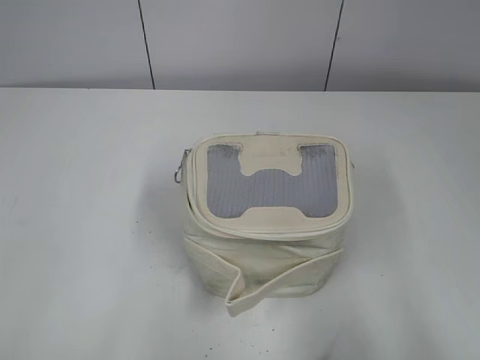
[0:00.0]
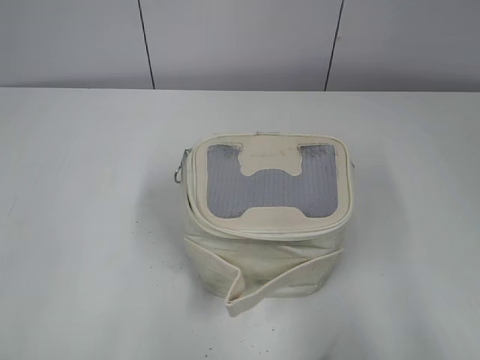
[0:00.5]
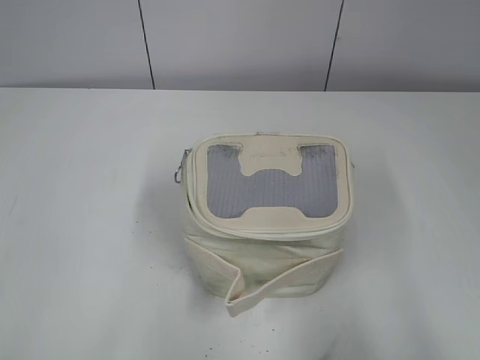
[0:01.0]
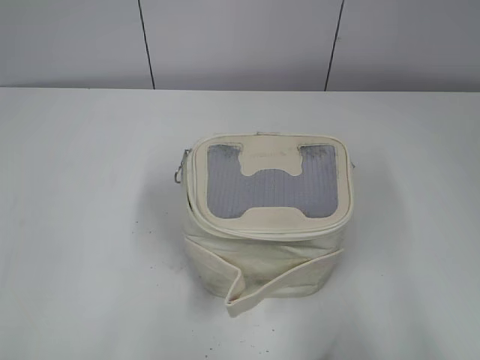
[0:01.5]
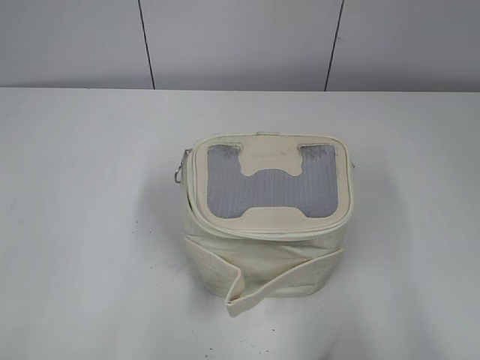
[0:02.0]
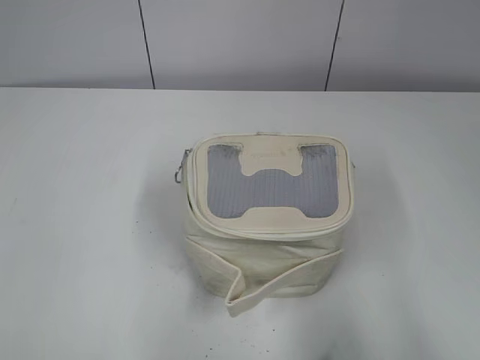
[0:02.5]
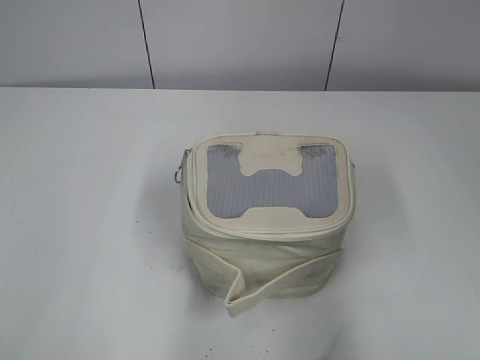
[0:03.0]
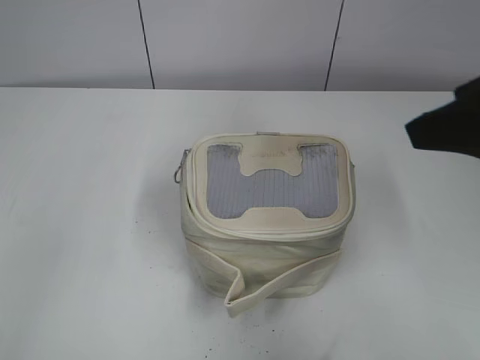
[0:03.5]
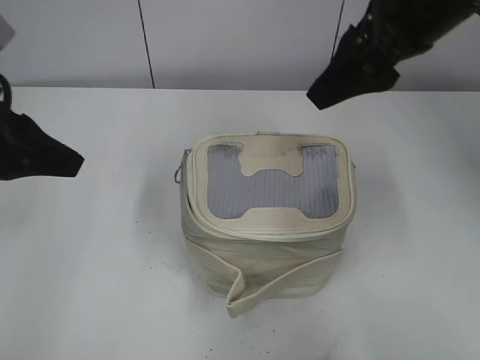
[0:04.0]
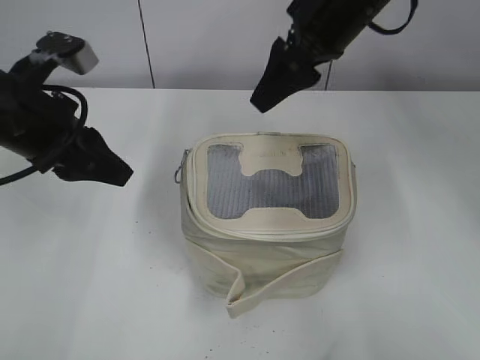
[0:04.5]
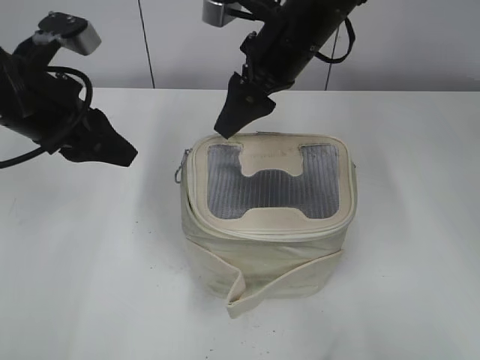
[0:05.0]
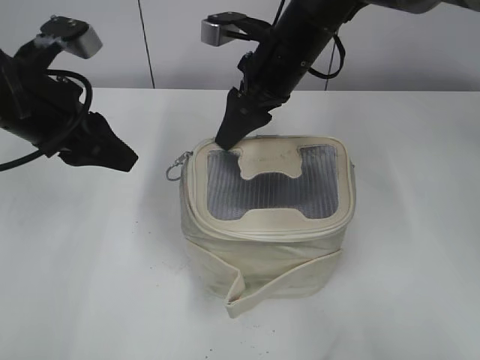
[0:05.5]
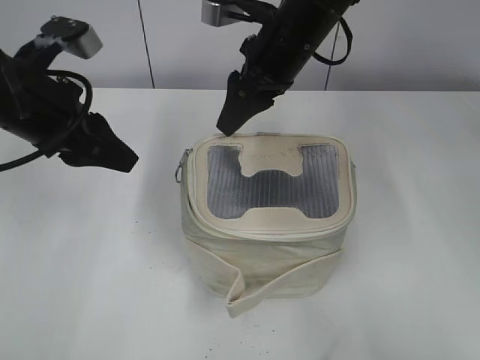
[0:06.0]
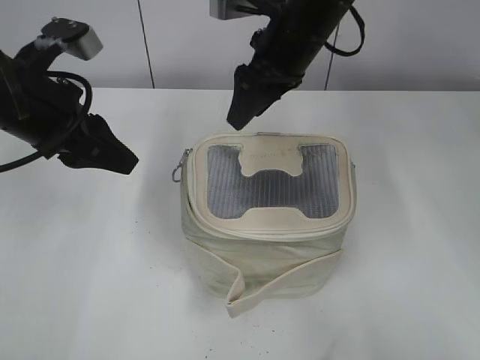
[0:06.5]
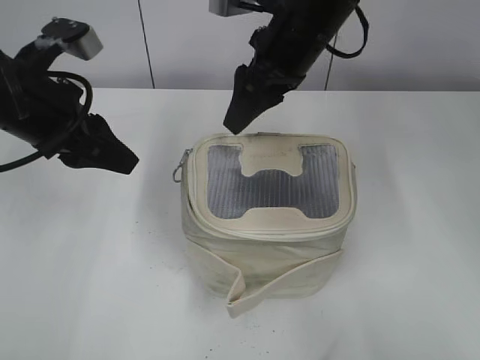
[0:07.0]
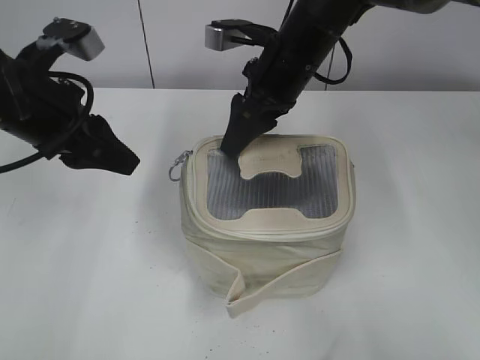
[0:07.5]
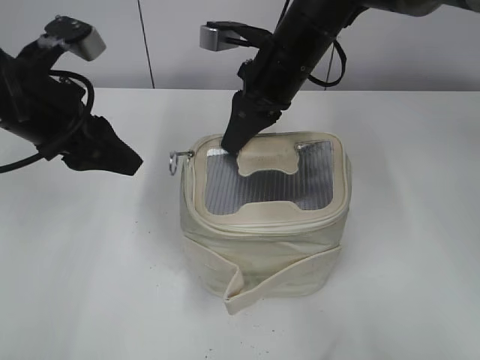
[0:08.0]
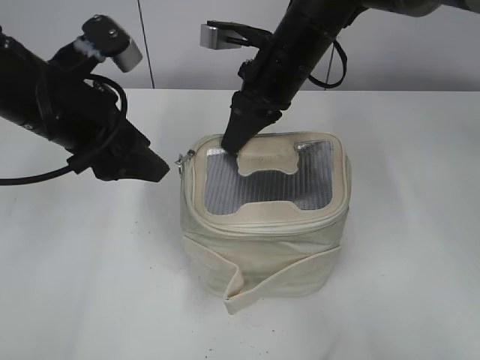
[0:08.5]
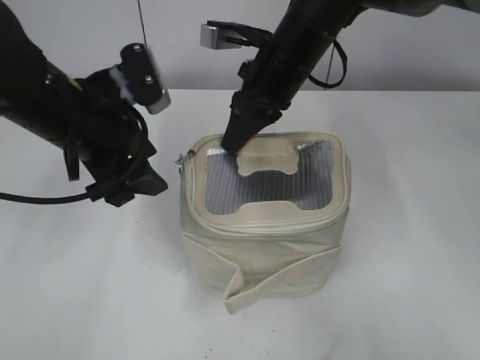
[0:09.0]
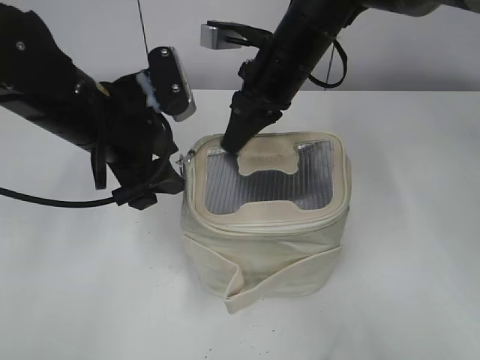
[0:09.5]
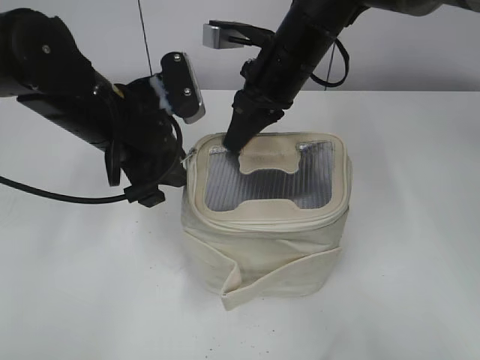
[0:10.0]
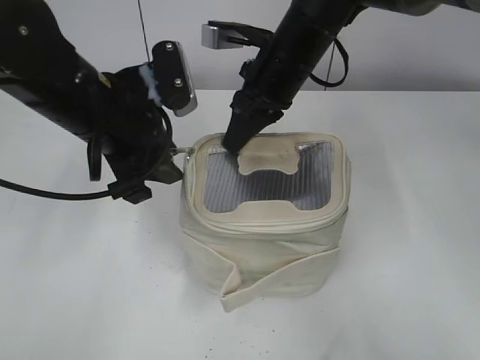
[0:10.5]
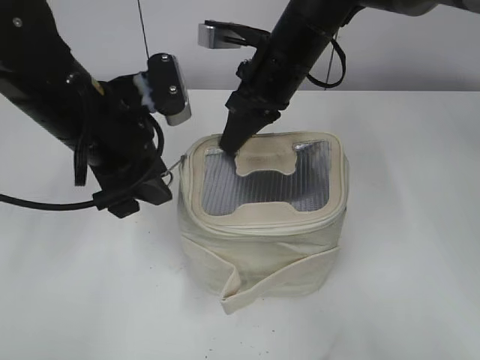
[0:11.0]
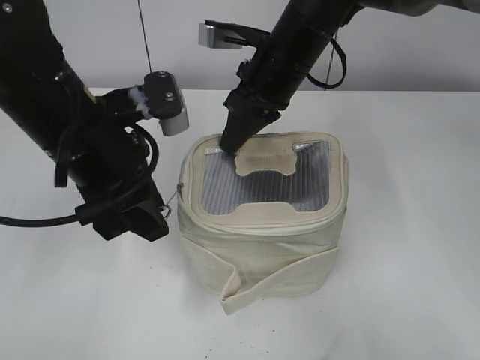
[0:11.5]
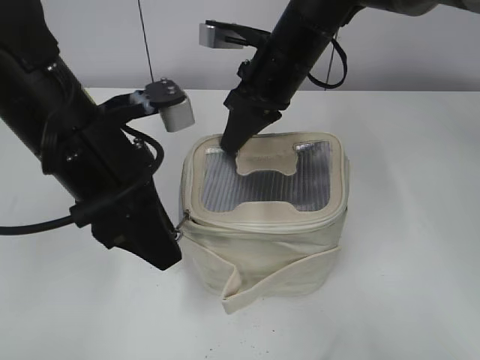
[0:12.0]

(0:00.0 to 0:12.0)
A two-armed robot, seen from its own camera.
0:02.0 - 0:04.0: The left gripper travels forward by some 25 cm. Meanwhile the right gripper goes approximately 35 cm forward and to the left.
0:04.0 - 0:06.0: The left gripper shifts some 5 cm forward. The right gripper goes about 15 cm forward, to the left and downward.
0:06.0 - 0:08.0: The right gripper closes up.
0:08.0 - 0:10.0: The left gripper is displaced to the right by roughly 10 cm.
0:10.0 - 0:12.0: The left gripper goes about 5 cm backward.

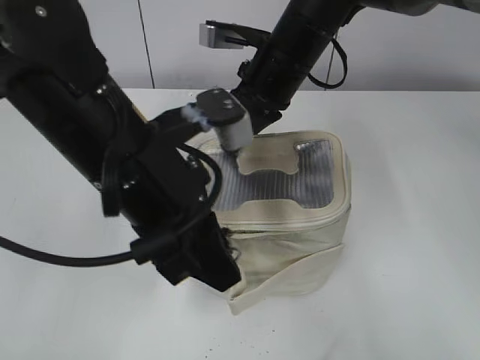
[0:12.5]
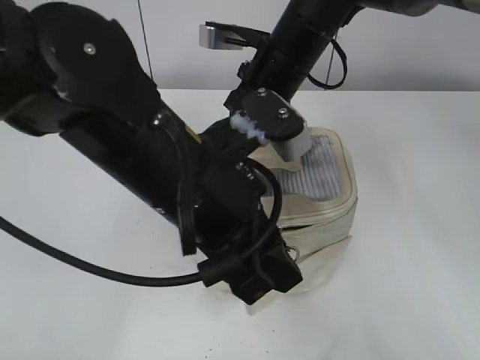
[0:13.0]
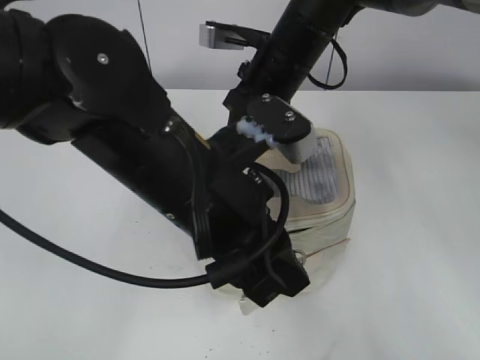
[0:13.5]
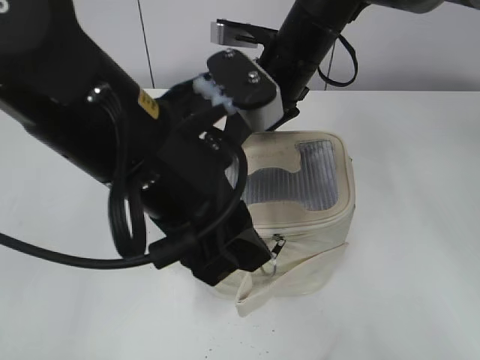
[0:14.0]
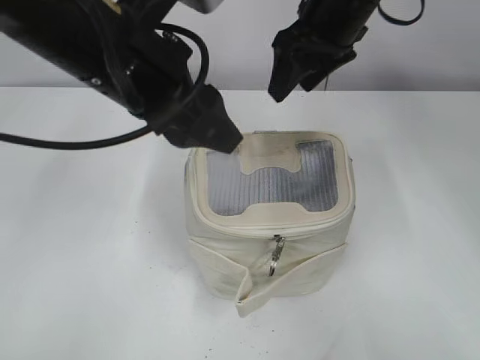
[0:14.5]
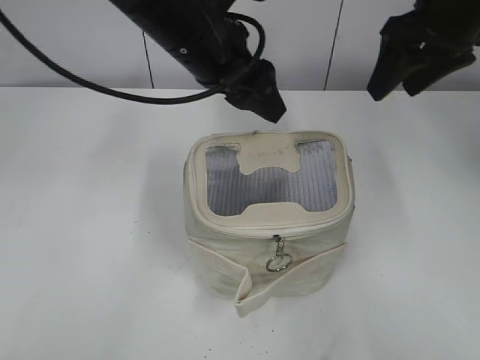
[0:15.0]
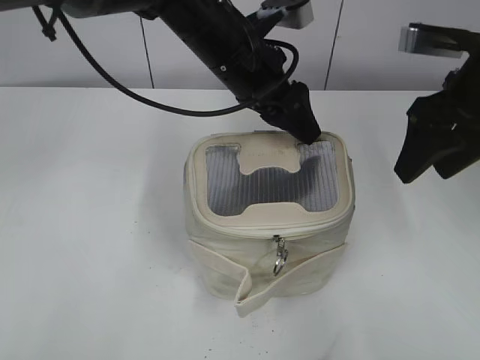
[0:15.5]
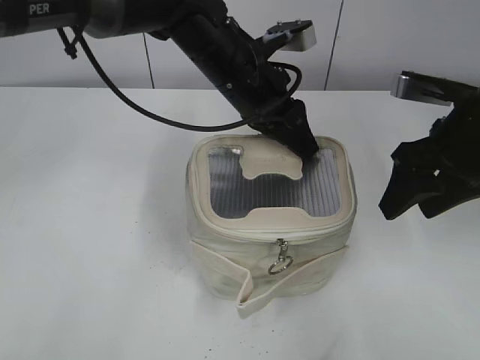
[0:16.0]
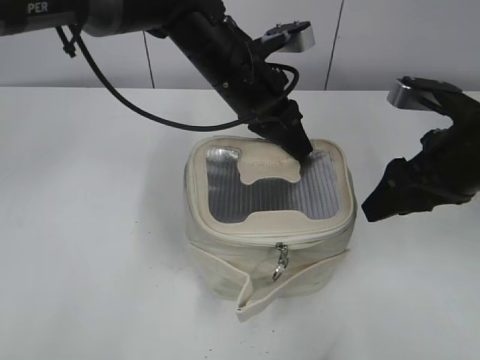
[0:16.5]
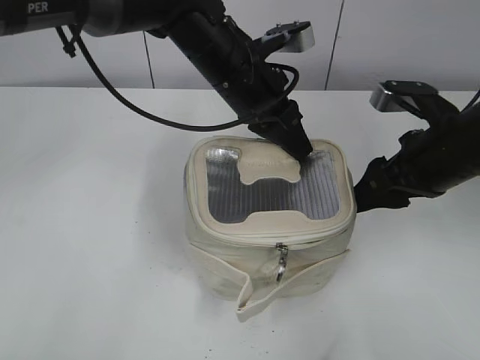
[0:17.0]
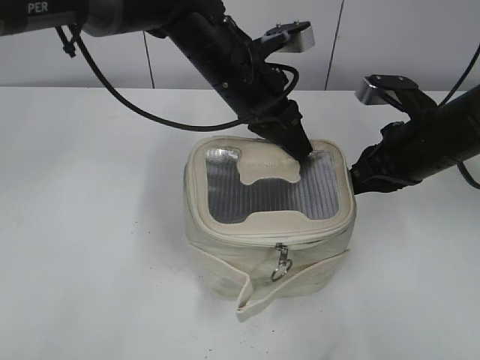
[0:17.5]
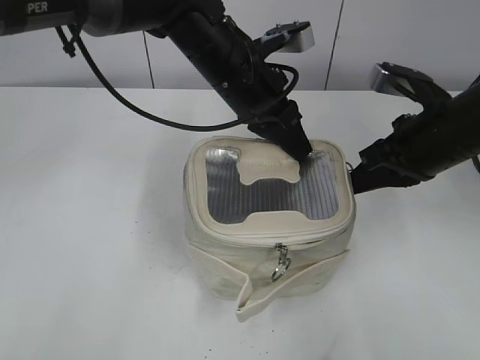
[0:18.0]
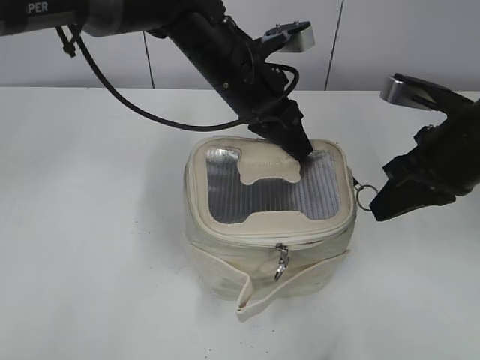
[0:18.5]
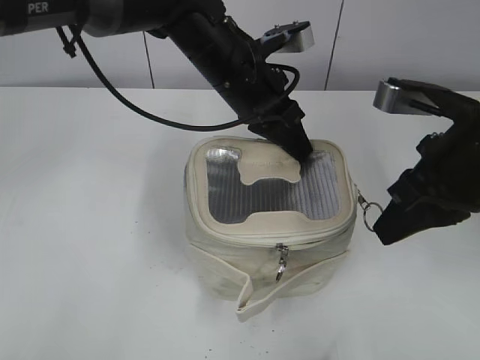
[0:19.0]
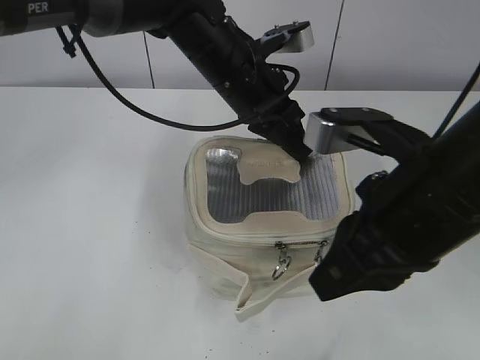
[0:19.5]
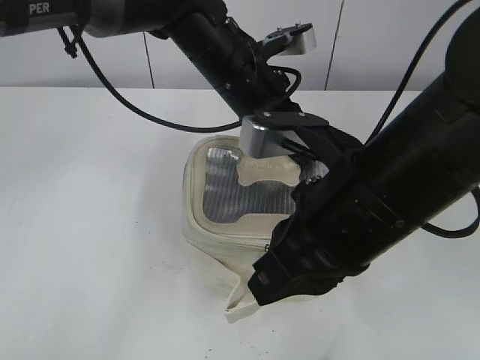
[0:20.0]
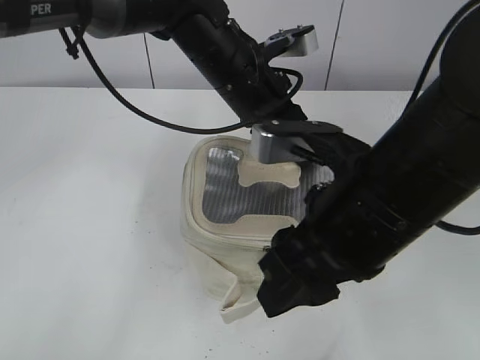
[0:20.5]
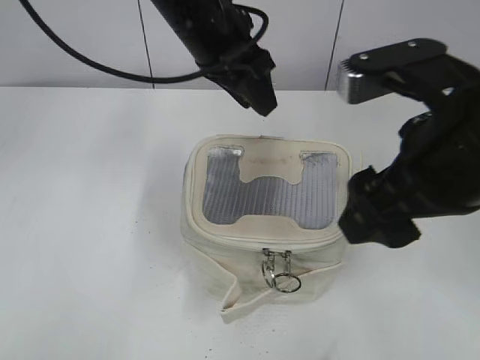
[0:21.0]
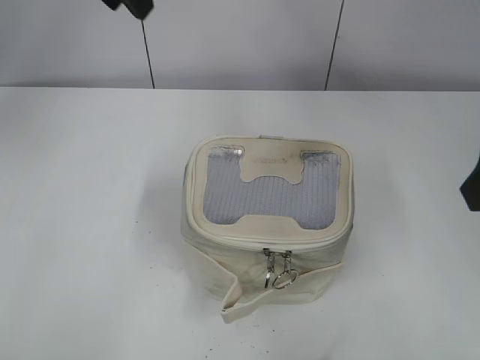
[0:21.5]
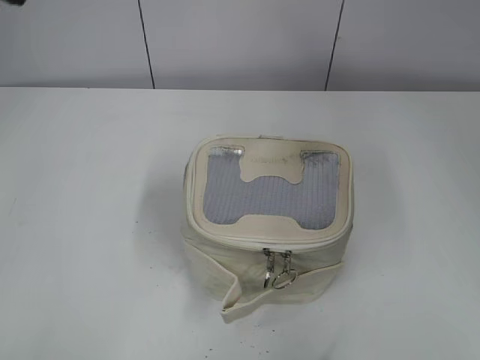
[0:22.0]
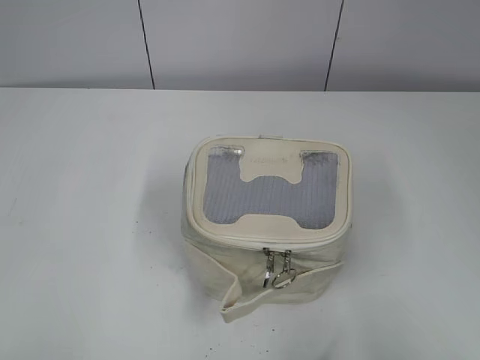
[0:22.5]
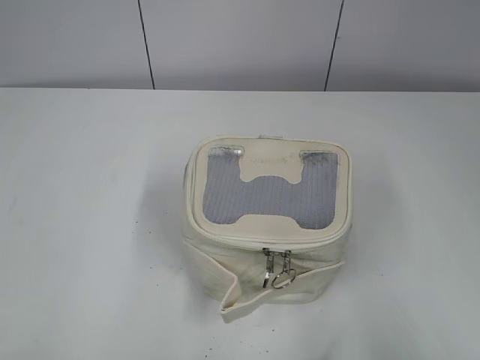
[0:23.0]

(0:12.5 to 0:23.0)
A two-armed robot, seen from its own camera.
Step, 0:14.5 - 0:20.5: Zip up the bag with your right hand.
0:12.5 - 0:14.5: The right gripper goes some 10 cm upward and to the right, and opens its fingers, while the left gripper shifts about 5 cm upward, and opens its fingers.
0:14.5 - 0:16.5: The left gripper is displaced forward, to the right and downward by roughly 15 cm, and closes its fingers; the right gripper shifts some 20 cm backward, to the right and downward.
0:16.5 - 0:19.0: The right gripper closes.
0:19.0 - 0:21.0: The right gripper shifts approximately 10 cm to the left and backward, and opens up; the left gripper is displaced upward by approximately 5 cm, and opens up.
0:21.0 - 0:23.0: The right gripper moves backward and to the right, approximately 25 cm. The left gripper heads backward and to the left, covering roughly 50 cm.

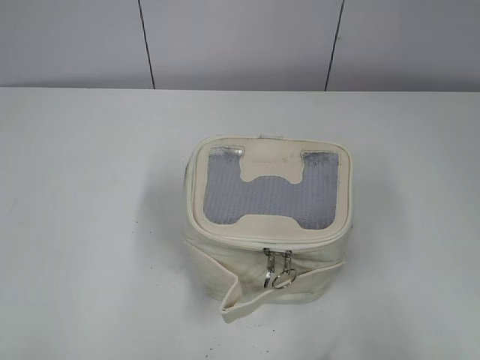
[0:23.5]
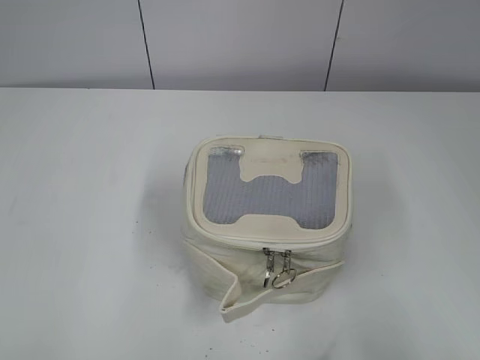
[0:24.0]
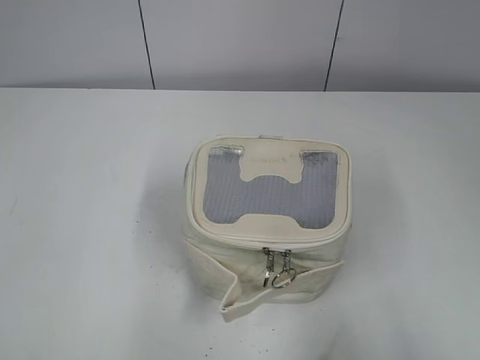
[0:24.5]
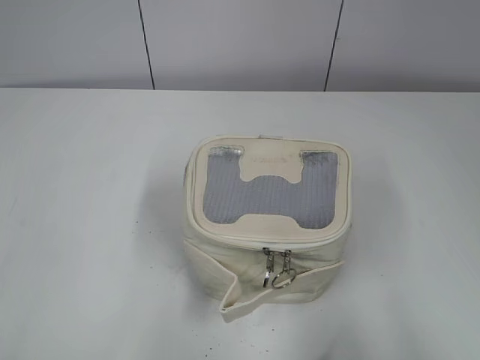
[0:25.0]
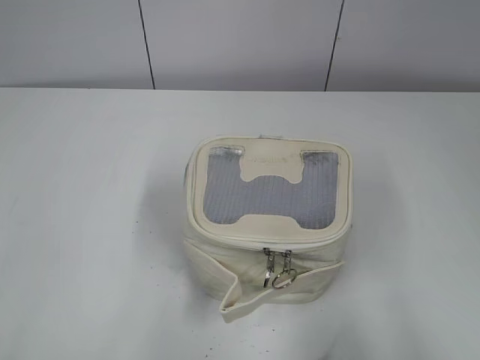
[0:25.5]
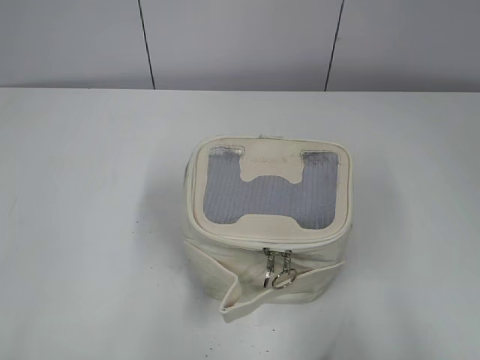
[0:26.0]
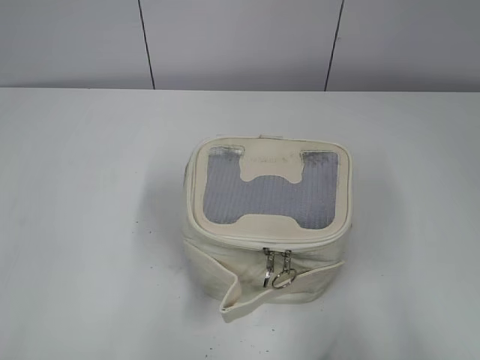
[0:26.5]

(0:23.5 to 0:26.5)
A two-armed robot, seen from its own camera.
0:25.0 - 0:26.5: Both grippers stay put.
